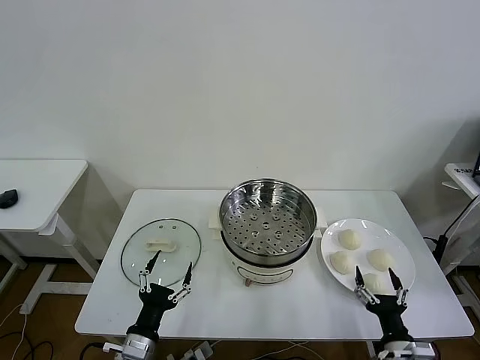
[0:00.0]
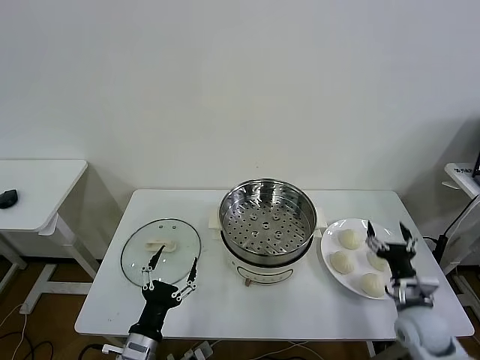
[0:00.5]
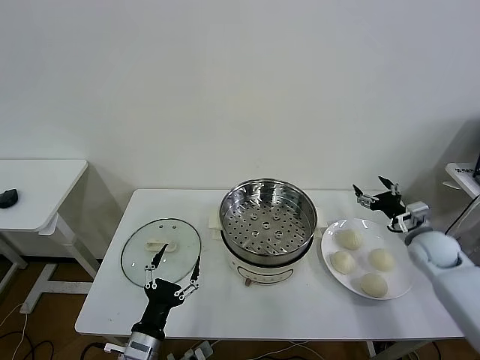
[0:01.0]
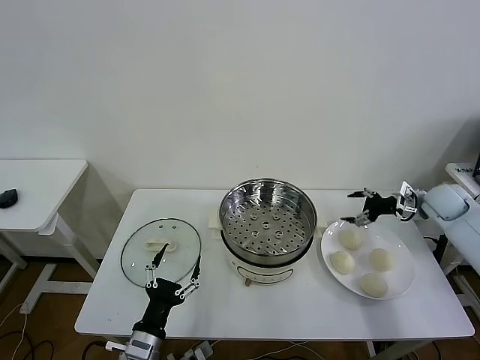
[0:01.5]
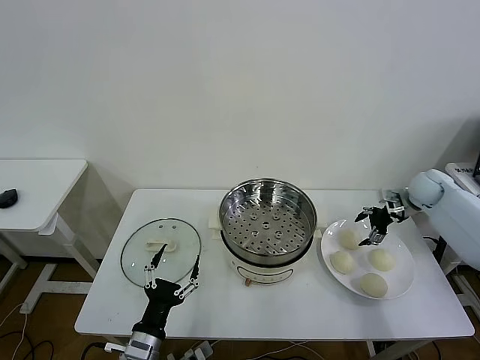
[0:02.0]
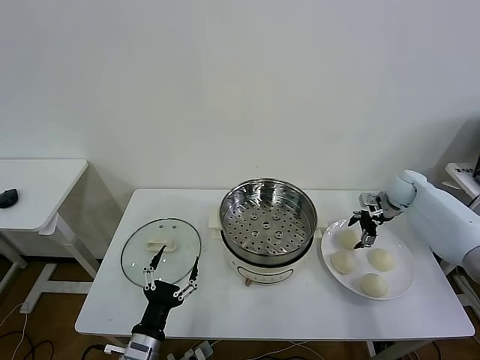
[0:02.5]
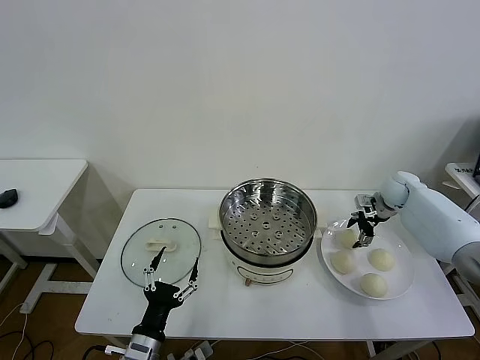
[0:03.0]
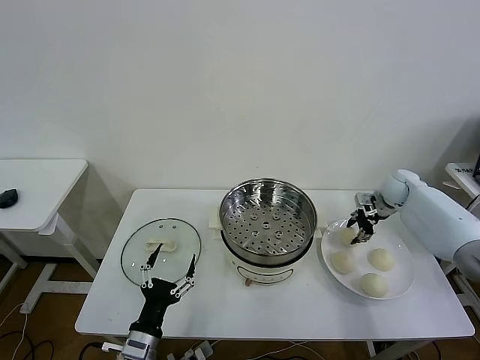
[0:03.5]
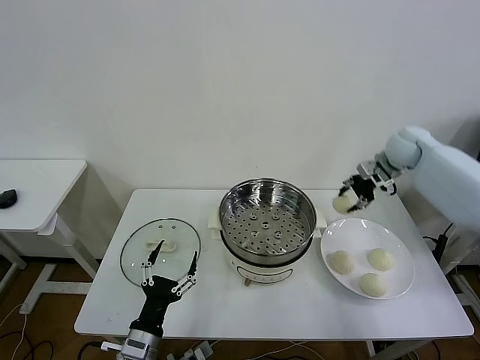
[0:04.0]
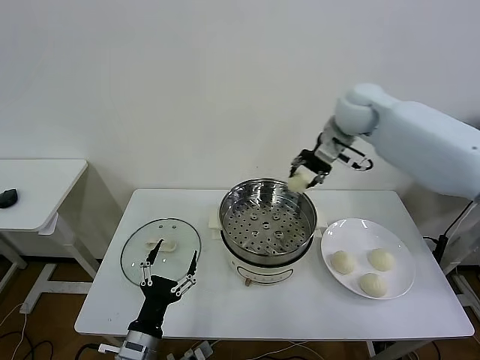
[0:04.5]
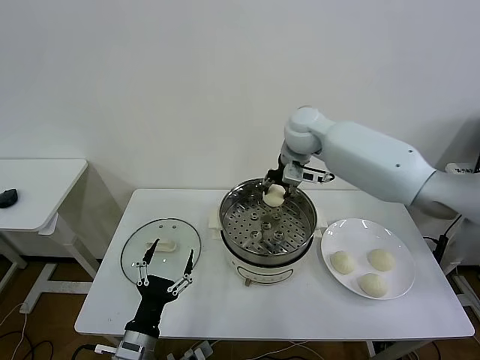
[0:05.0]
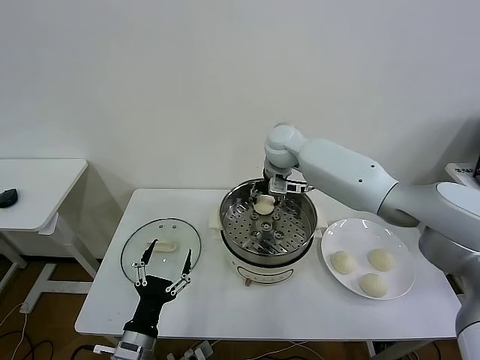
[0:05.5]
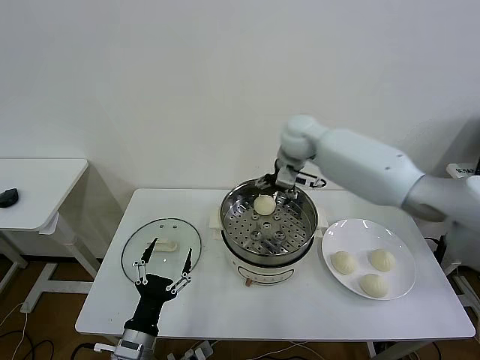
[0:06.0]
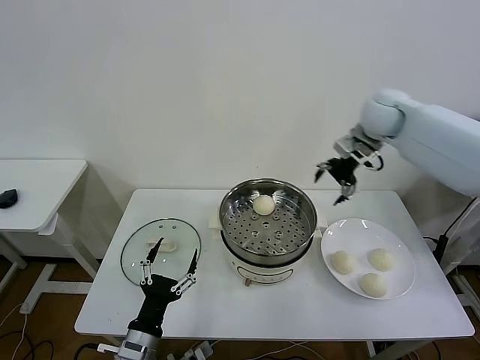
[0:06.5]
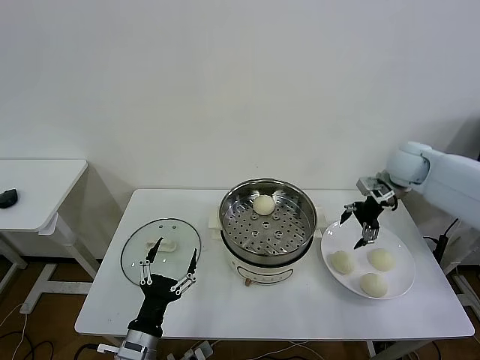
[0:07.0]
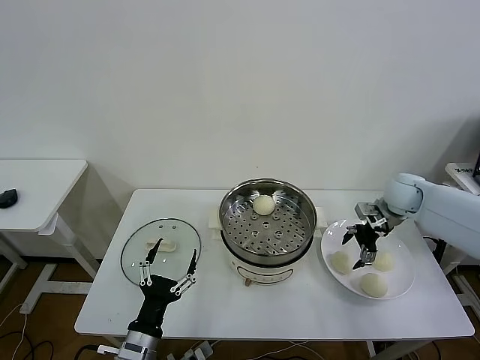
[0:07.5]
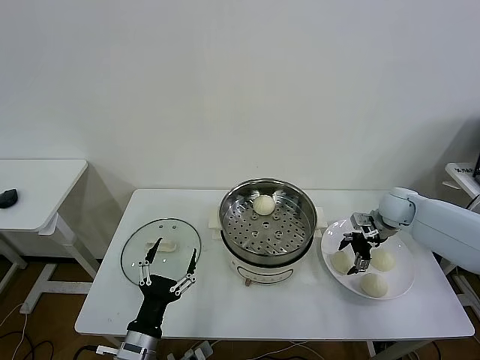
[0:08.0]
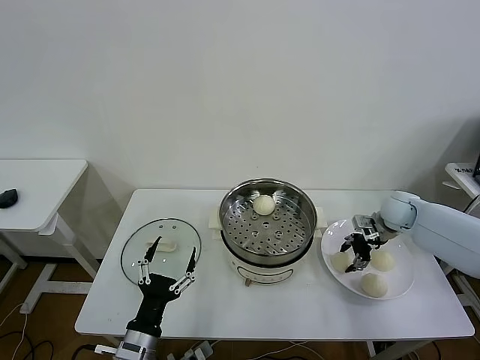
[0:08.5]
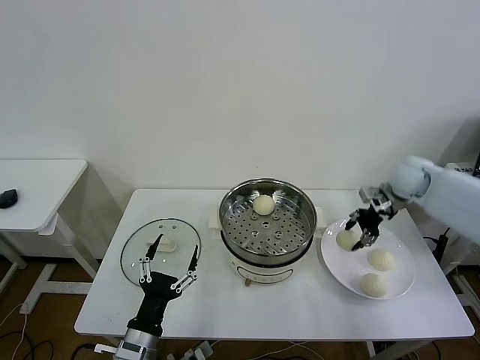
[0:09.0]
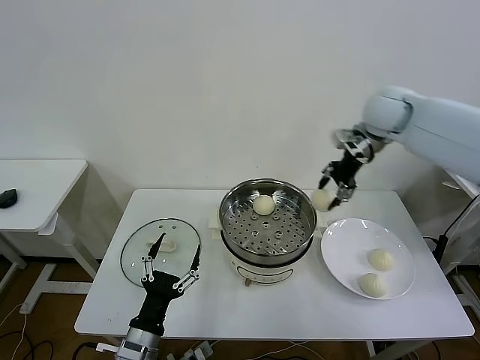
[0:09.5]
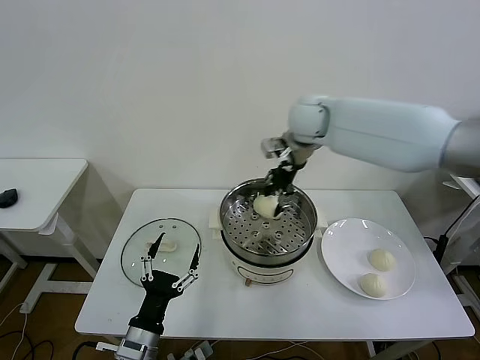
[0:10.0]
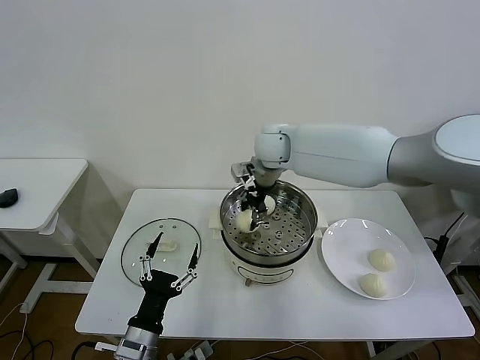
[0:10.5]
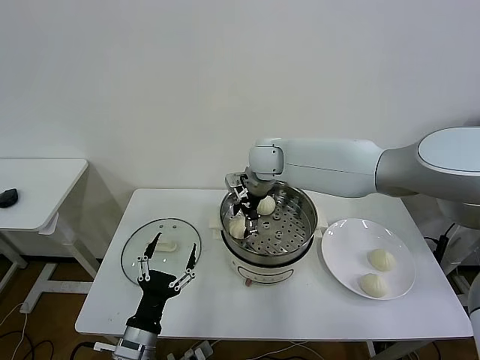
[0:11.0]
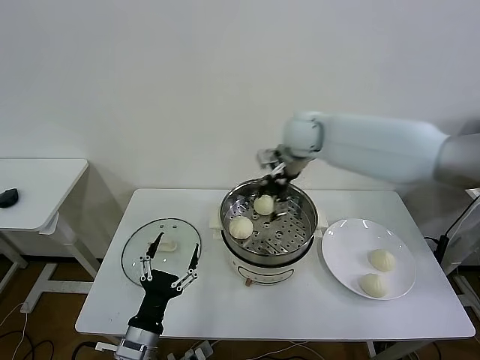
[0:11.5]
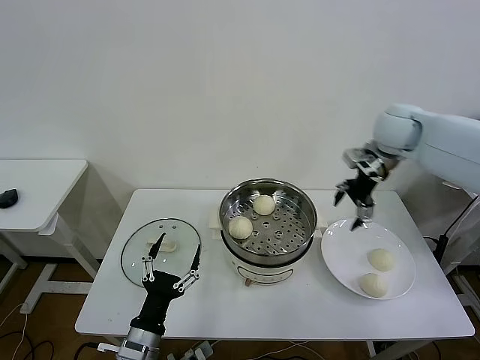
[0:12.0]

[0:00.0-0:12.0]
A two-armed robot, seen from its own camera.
Task of the whole recording: take steamed baozi put them in steamer then cover it.
Step, 0:00.0 to 0:03.0: Grasp the baozi in the plate with right gripper.
Step, 0:03.5 to 0:05.5: Place the baozi on the steamer with right gripper.
Step, 0:06.0 to 0:08.5: Grasp the baozi in the plate with right gripper.
Step, 0:09.0 to 0:11.0: Place the baozi on the steamer with right gripper.
0:02.0 to 0:04.0: The right gripper shifts roughly 15 cm upward and to the left, and closes up.
0:04.0 to 0:06.0: The right gripper travels to the left by about 25 cm, and opens.
0:06.0 to 0:08.0: The right gripper heads to the right and downward, covering roughly 30 cm.
0:08.0 to 0:10.0: The right gripper heads to the left and upward, covering roughly 35 cm, and closes up.
0:10.0 to 0:12.0: The right gripper shifts some 20 cm to the right, and opens its fingers.

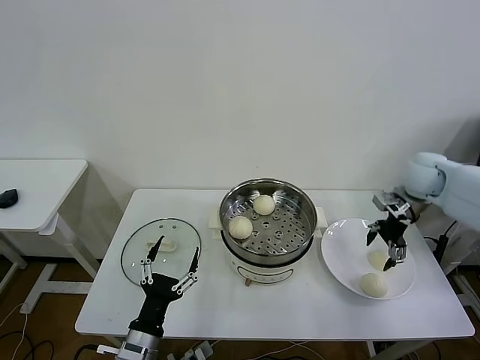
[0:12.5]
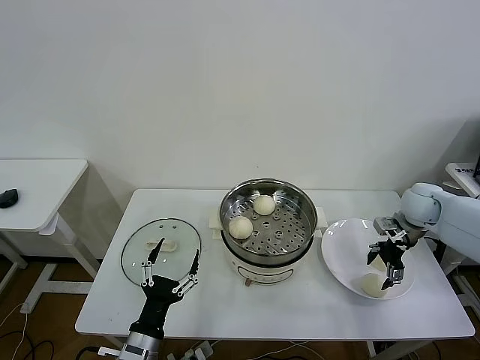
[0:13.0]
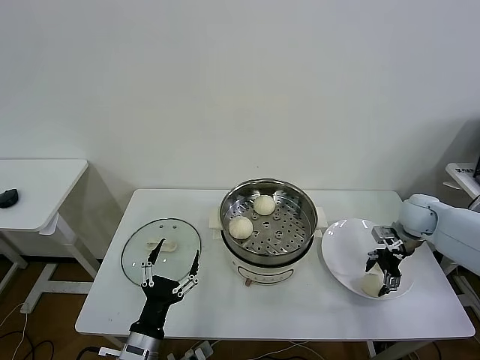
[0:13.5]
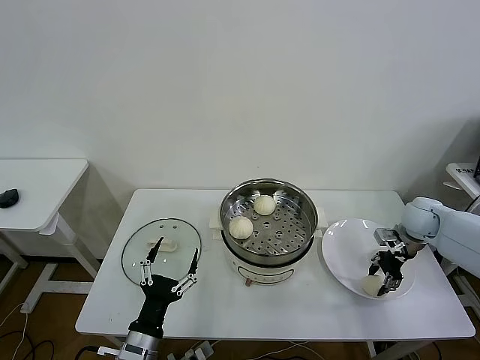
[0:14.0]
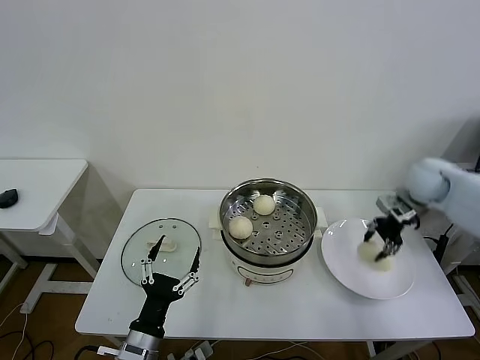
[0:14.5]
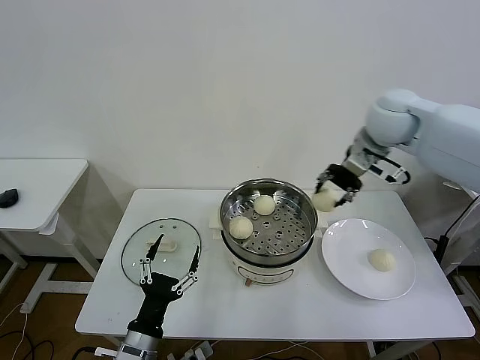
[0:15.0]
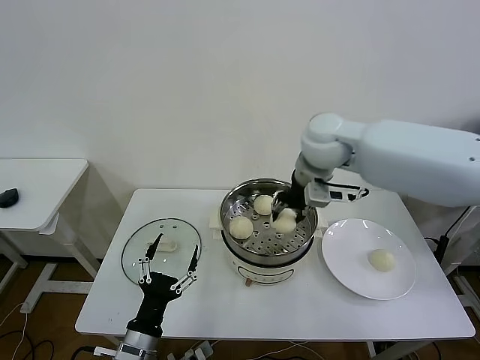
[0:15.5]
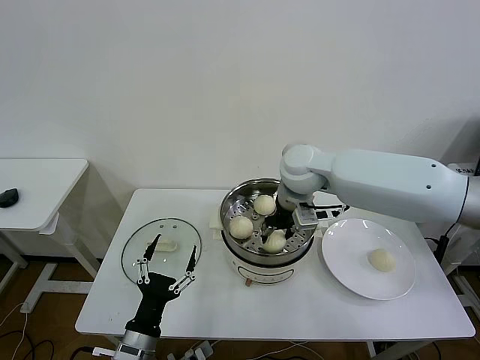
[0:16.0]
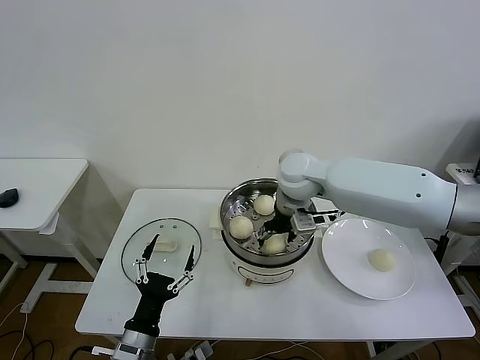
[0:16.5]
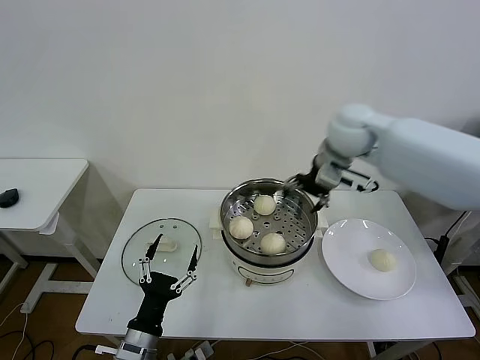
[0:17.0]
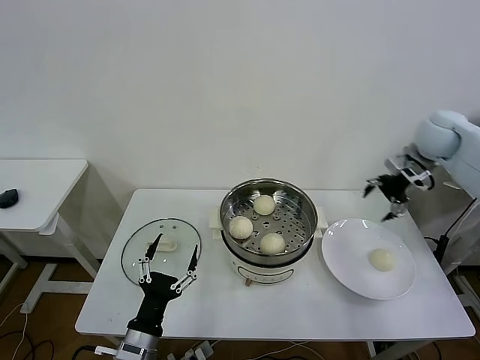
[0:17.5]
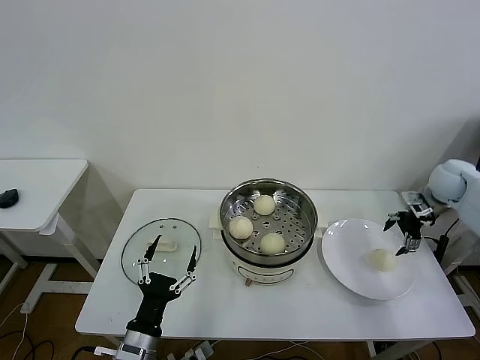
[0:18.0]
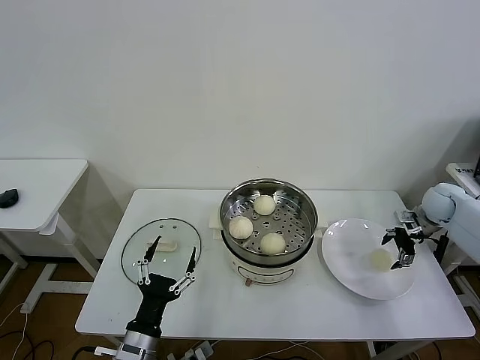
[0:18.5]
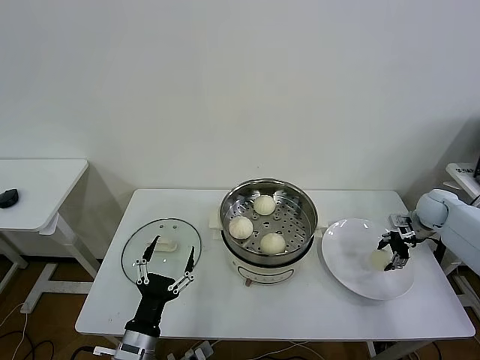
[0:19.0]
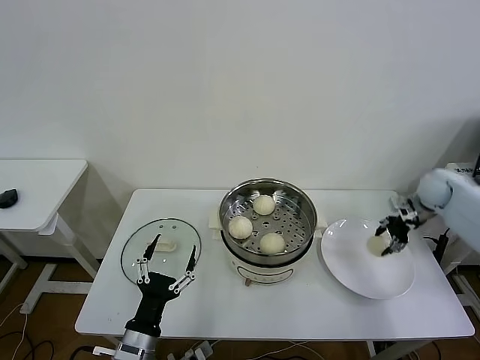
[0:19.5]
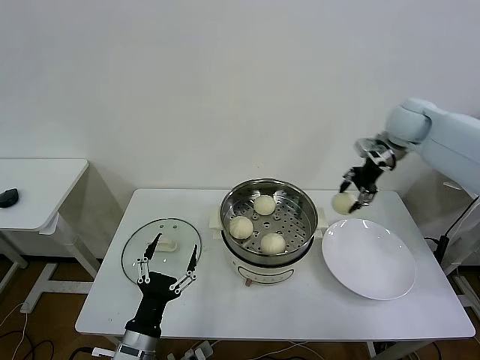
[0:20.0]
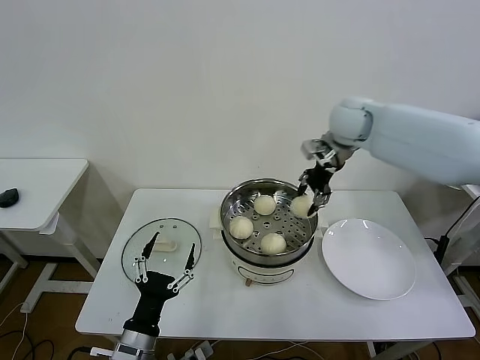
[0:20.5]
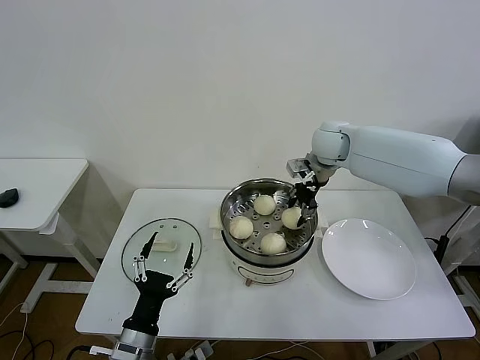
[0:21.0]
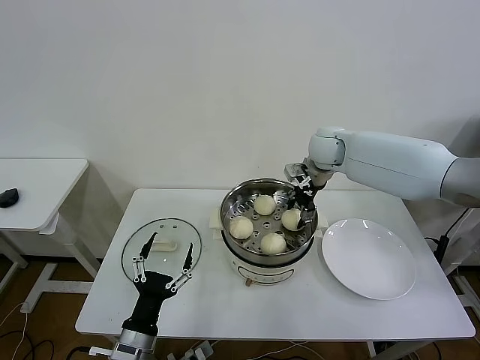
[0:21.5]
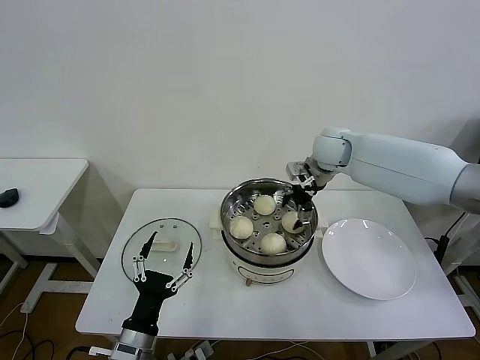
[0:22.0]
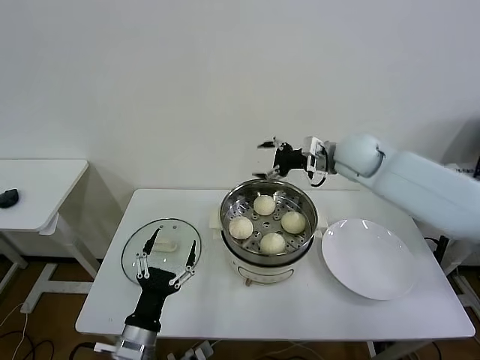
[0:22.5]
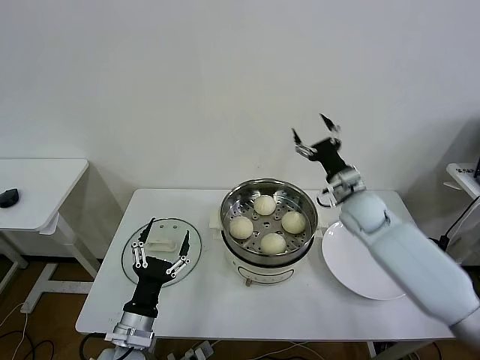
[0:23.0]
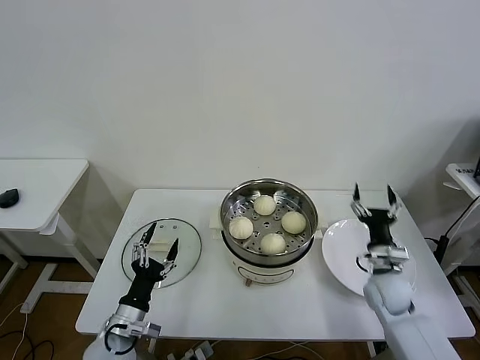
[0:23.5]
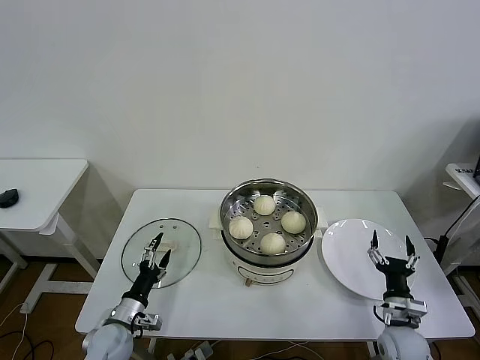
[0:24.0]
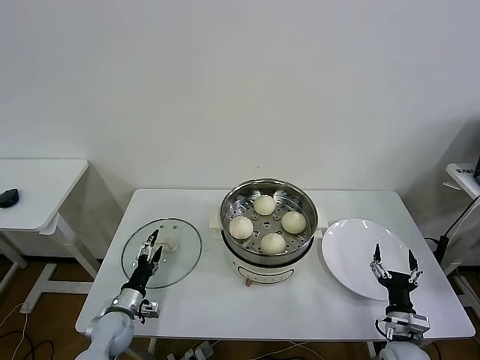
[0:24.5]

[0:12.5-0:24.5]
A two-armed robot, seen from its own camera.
Task of the whole recording: take steamed baozi put them in steamer then cover it.
Step, 0:14.0 to 0:16.0: Place the baozi on the steamer with right gripper.
Step, 0:16.5 to 0:19.0: Grasp the baozi in the plate with right gripper.
Step, 0:19.5 to 0:21.5: Place the baozi on the steamer with right gripper.
0:12.5 to 0:14.5: The right gripper goes downward and returns, approximately 10 cm each way, and closes.
0:14.5 to 0:16.5: The right gripper moves to the left, approximately 30 cm, and opens up.
0:16.5 to 0:18.5: The right gripper moves to the right, roughly 40 cm.
0:18.5 to 0:20.5: The right gripper moves to the left and upward, roughly 35 cm, and closes.
0:20.5 to 0:22.5: The right gripper travels downward by approximately 5 cm, and opens up.
0:22.5 to 0:24.5: The left gripper heads downward, forward and to the left, covering roughly 20 cm. Meanwhile the right gripper travels downward and backward by some 50 cm.

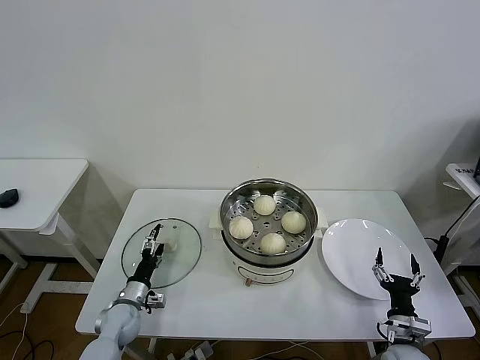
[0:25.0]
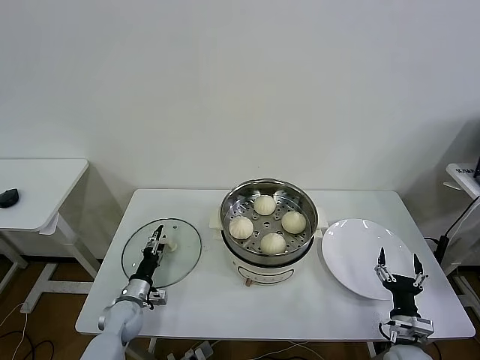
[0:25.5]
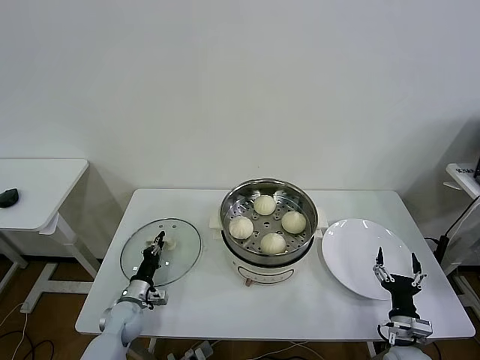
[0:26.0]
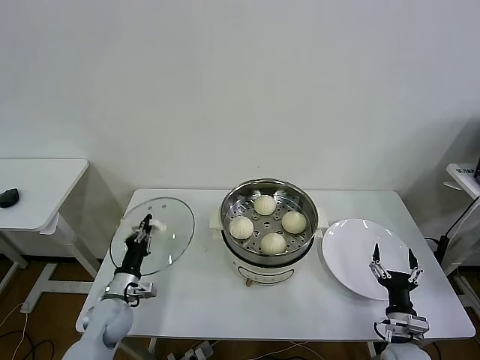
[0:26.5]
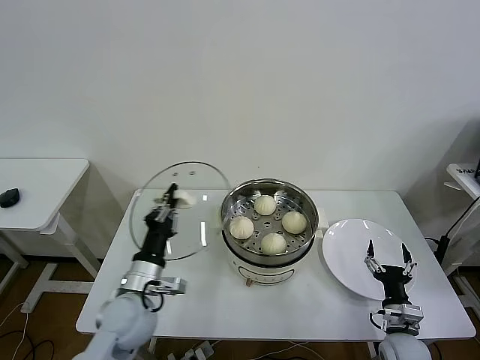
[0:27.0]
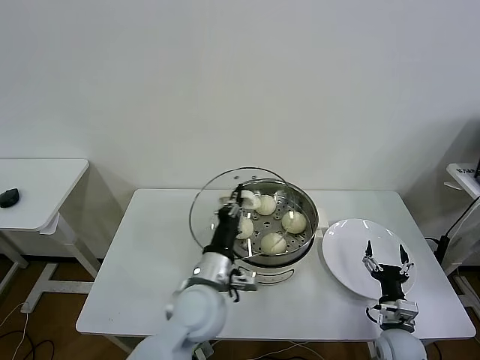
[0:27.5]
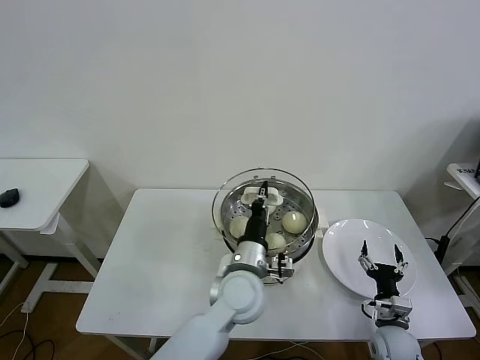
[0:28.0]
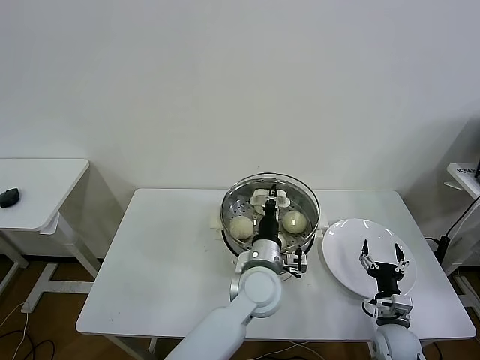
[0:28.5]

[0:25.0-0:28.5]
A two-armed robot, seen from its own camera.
Task of the whole recording: take steamed baozi put them in steamer then cover it.
0:25.0 to 0:27.0: The left gripper heads upward and to the right, covering some 20 cm, and closes.
0:27.0 to 0:28.5: The left gripper goes approximately 25 cm to the right.
